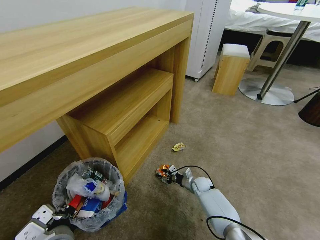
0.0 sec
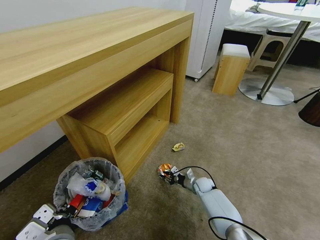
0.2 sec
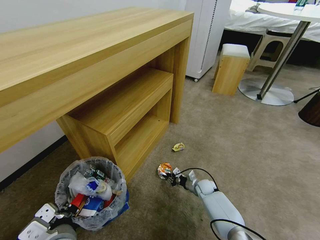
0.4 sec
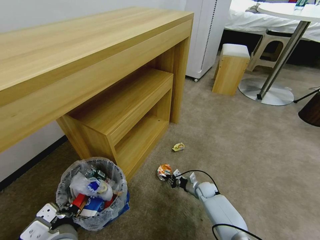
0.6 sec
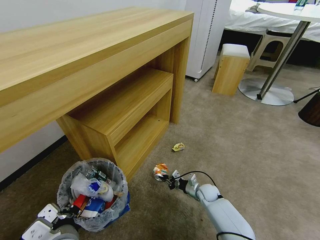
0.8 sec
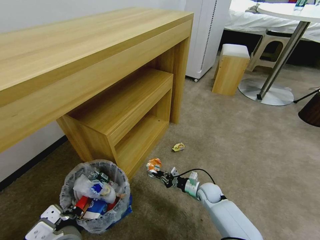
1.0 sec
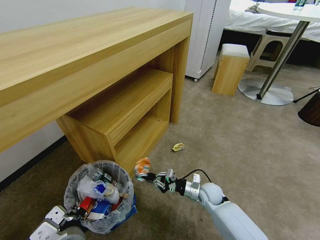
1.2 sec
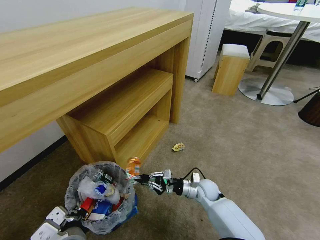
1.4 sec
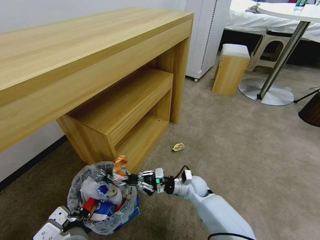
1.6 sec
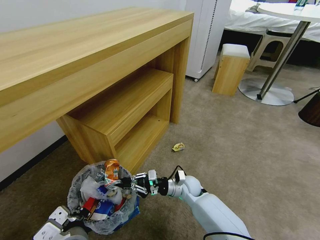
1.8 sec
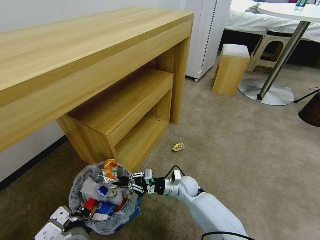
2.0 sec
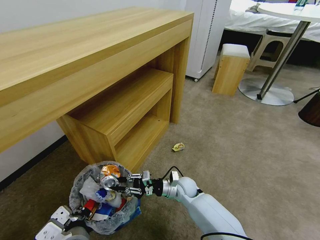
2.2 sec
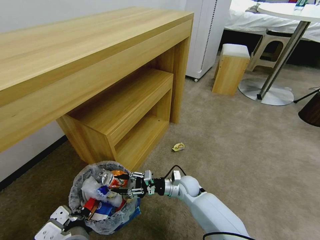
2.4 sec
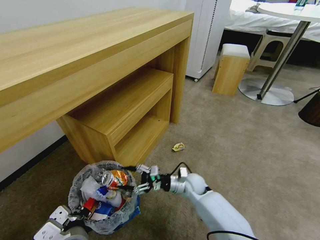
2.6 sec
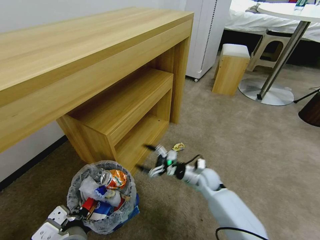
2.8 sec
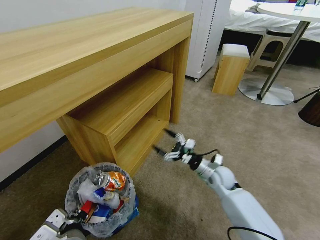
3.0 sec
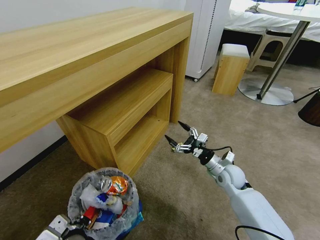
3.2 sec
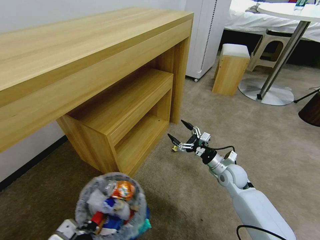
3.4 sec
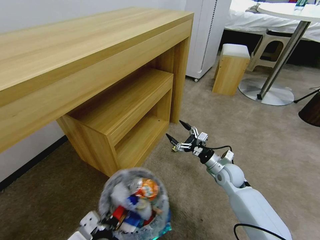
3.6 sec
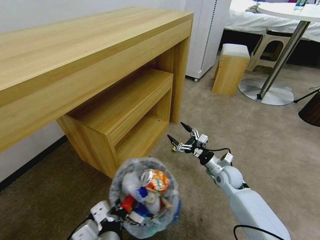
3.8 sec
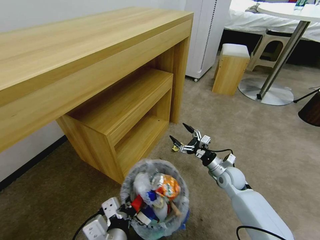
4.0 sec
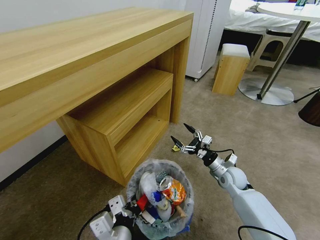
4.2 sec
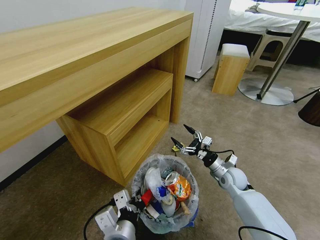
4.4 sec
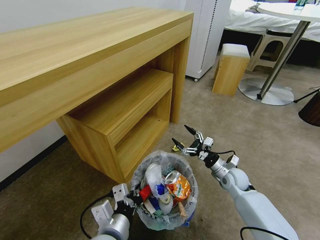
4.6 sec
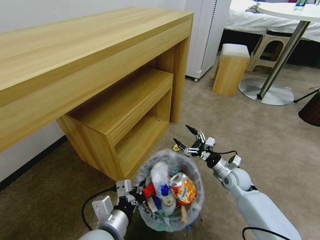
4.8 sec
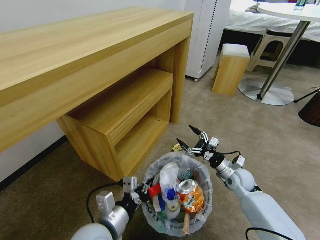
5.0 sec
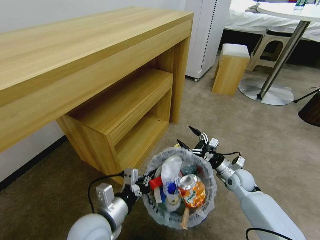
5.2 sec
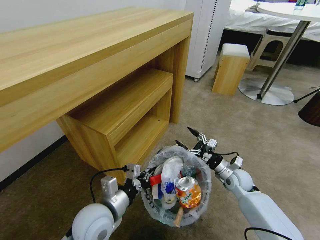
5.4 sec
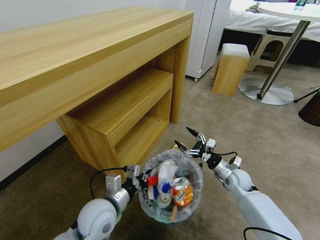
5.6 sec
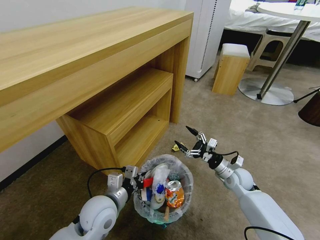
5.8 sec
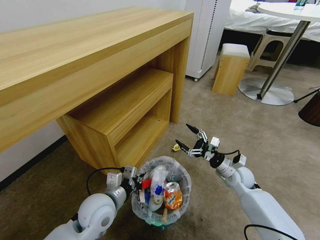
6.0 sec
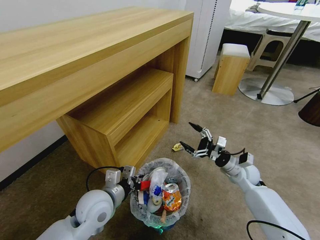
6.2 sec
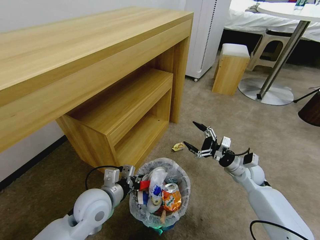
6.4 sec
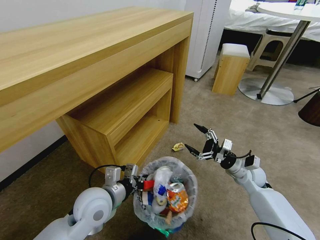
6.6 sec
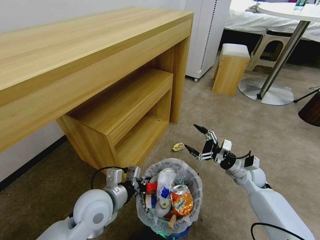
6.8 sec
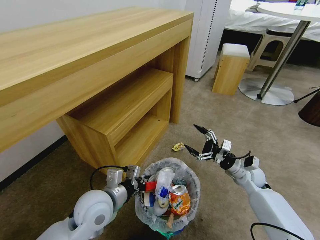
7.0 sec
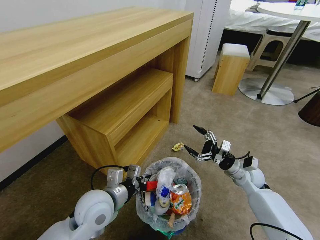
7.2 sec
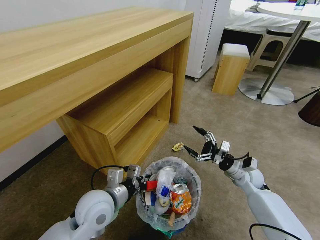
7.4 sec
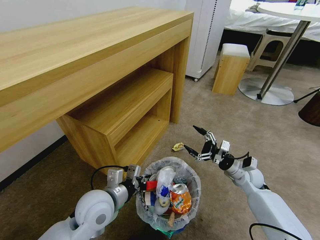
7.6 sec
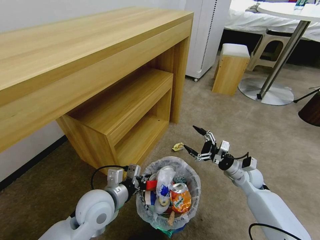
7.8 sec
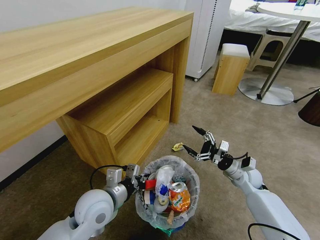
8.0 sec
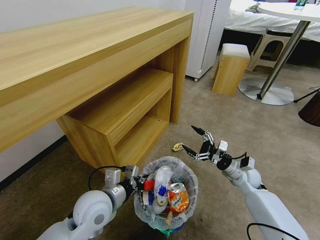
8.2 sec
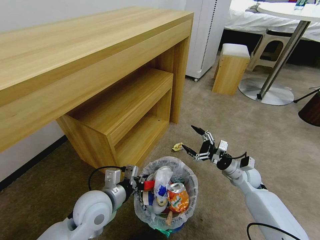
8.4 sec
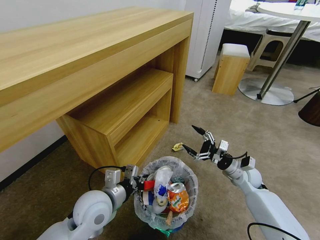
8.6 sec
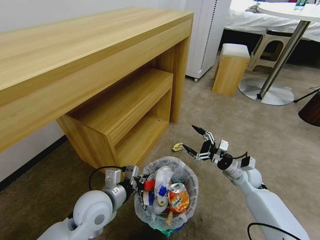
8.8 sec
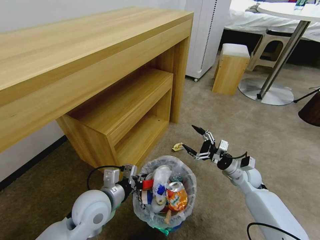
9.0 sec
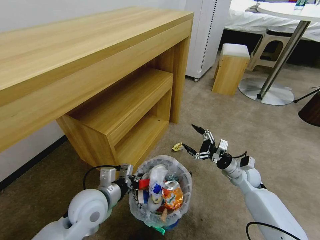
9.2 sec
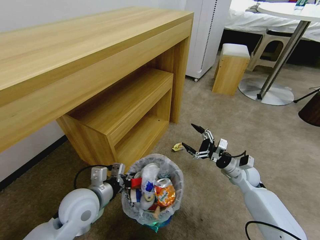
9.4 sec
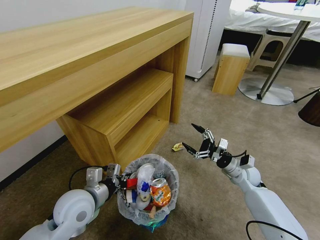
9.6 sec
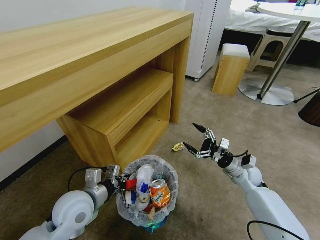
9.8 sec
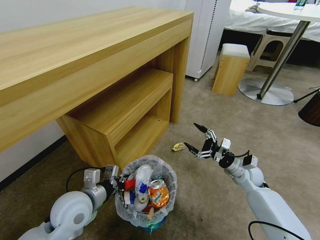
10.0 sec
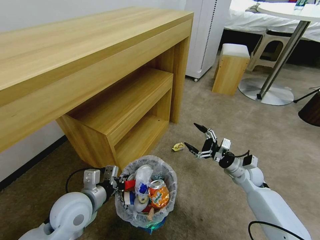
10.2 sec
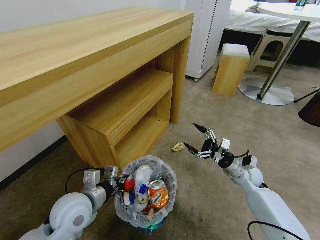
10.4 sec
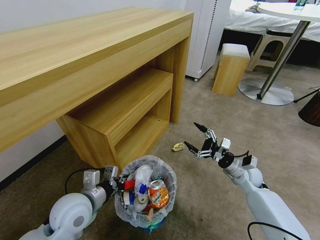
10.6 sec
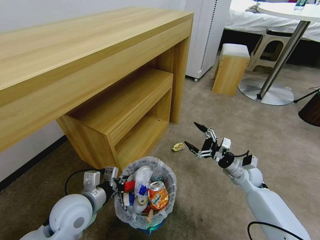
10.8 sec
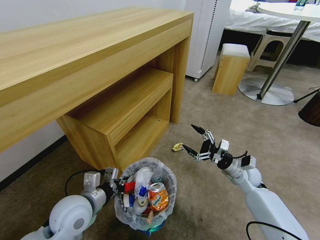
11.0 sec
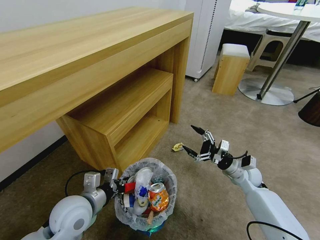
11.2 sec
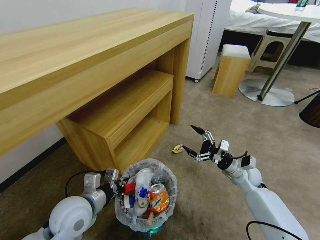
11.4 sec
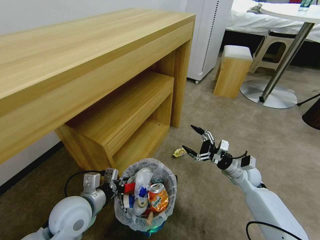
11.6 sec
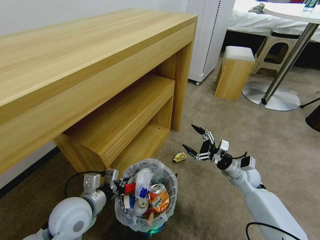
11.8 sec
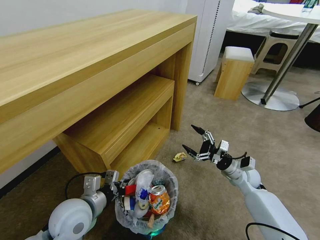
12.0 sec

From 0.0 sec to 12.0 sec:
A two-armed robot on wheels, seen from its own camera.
Task of the whole recording: Pick up the trash bin and place the garbage on the floor into it.
From 0.0 sec to 1.6 sec: The right gripper is displaced upward, to the left and backward by about 15 cm, and closes.
From 1.6 sec to 3.0 sec: The right gripper goes roughly 10 cm to the right and upward, and opens up.
From 3.0 sec to 4.4 sec: The grippers both shift to the right by roughly 5 cm.
From 4.4 sec to 6.0 sec: The left gripper is displaced forward and to the left by approximately 15 cm.
From 6.0 sec to 7.6 sec: The grippers move only a little.
From 7.6 sec to 9.0 sec: The two grippers keep their place.
From 9.0 sec to 10.4 sec: The grippers make only small movements.

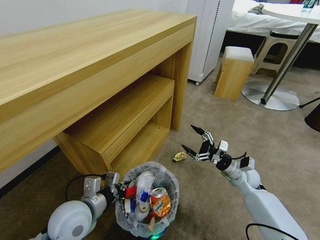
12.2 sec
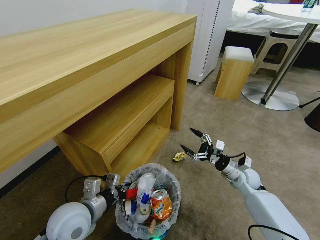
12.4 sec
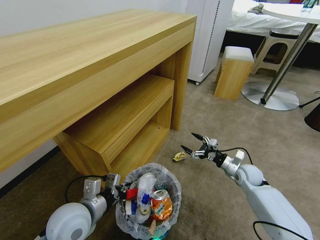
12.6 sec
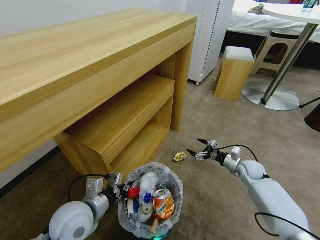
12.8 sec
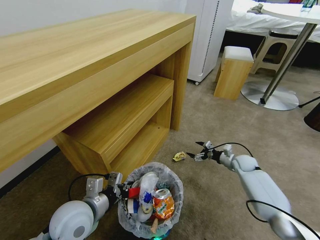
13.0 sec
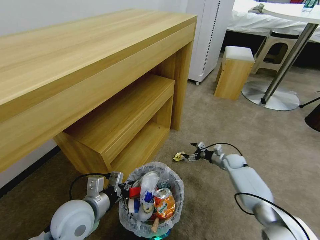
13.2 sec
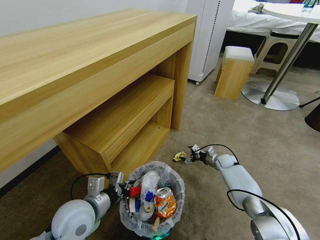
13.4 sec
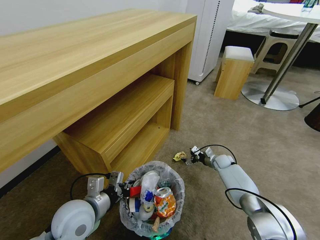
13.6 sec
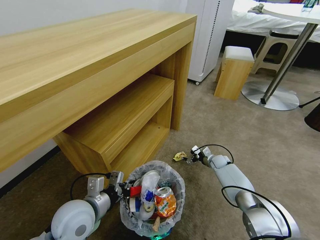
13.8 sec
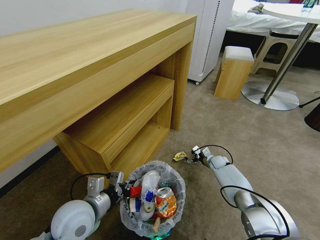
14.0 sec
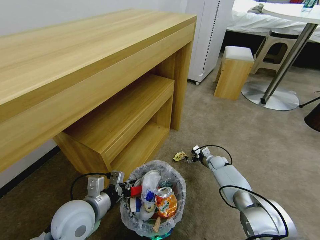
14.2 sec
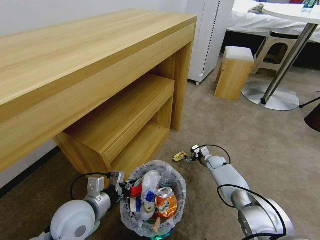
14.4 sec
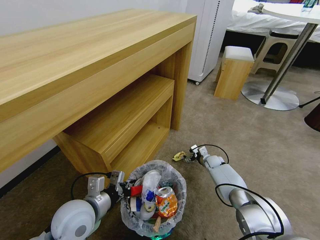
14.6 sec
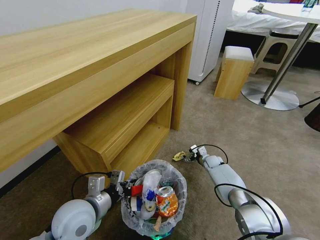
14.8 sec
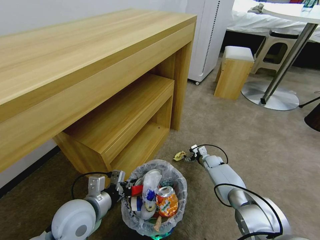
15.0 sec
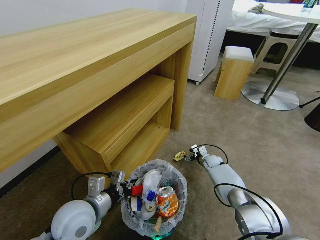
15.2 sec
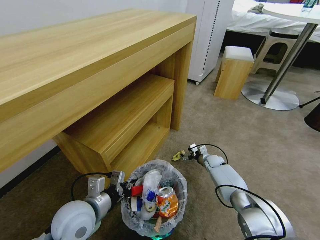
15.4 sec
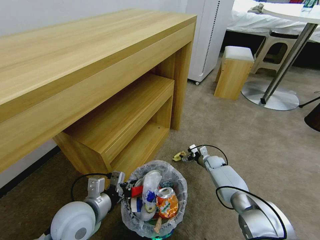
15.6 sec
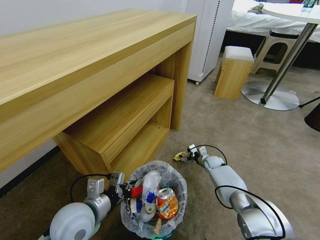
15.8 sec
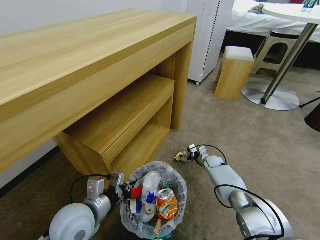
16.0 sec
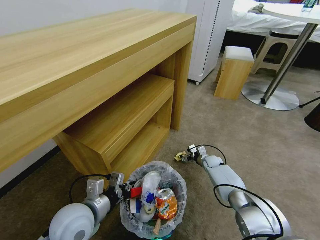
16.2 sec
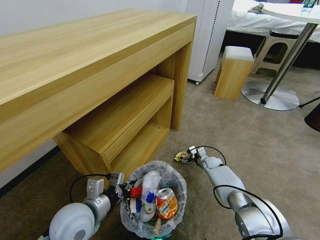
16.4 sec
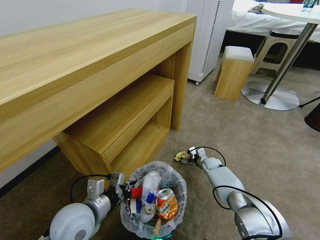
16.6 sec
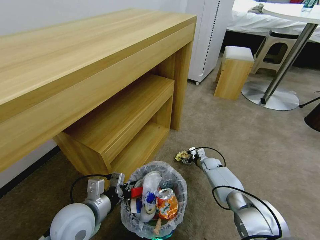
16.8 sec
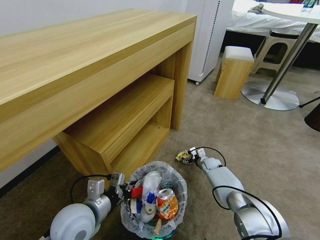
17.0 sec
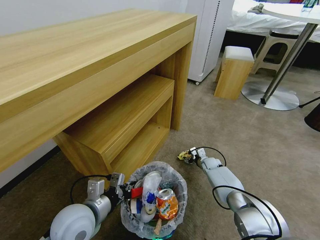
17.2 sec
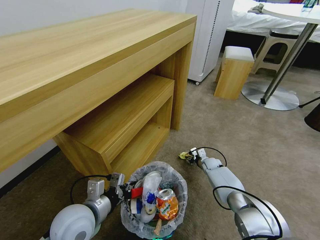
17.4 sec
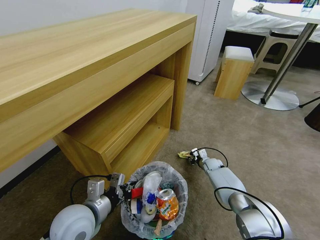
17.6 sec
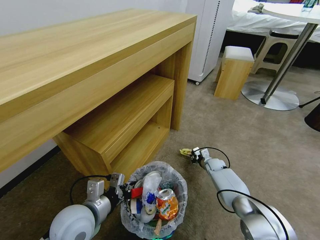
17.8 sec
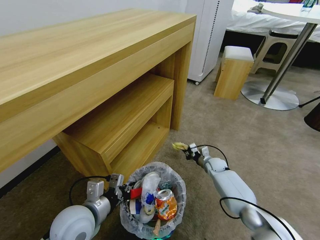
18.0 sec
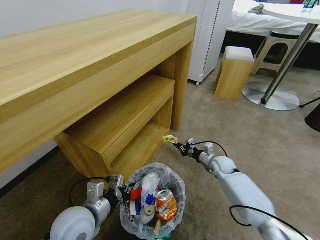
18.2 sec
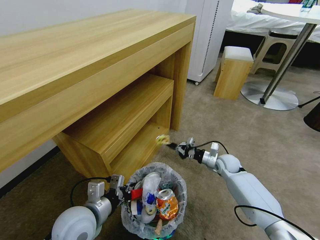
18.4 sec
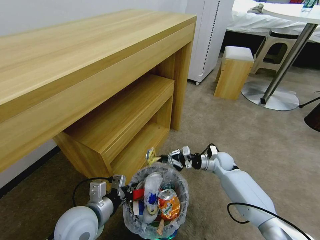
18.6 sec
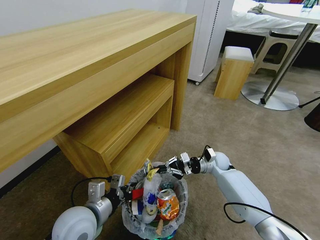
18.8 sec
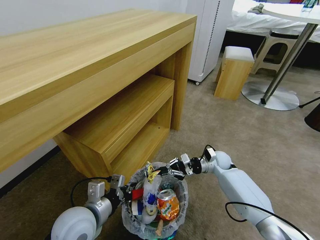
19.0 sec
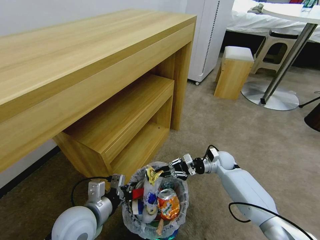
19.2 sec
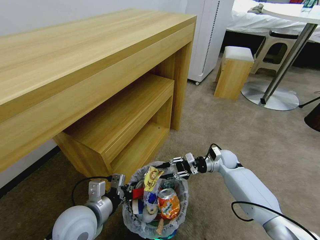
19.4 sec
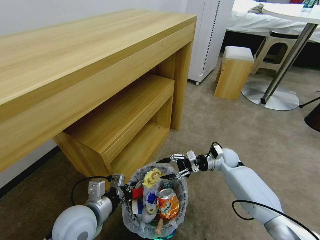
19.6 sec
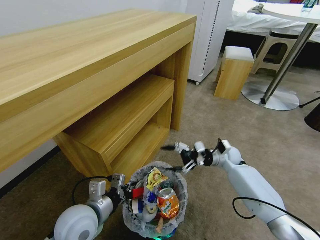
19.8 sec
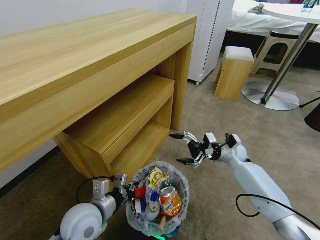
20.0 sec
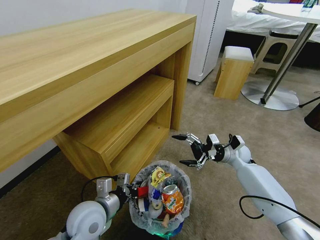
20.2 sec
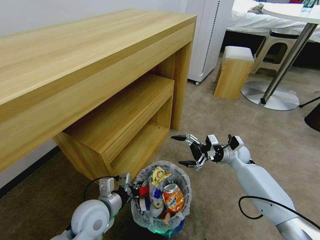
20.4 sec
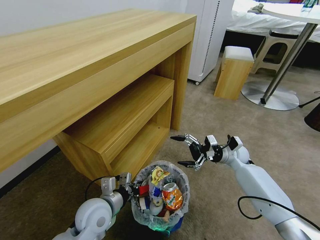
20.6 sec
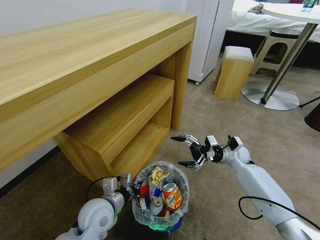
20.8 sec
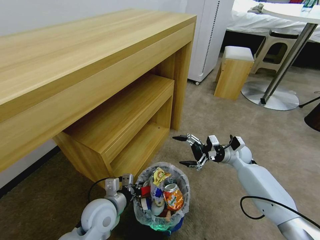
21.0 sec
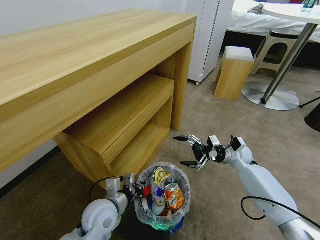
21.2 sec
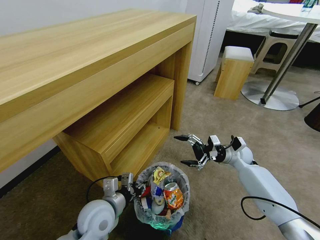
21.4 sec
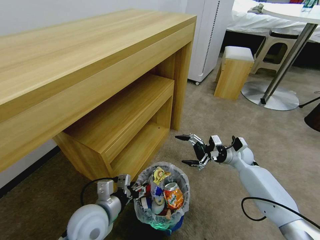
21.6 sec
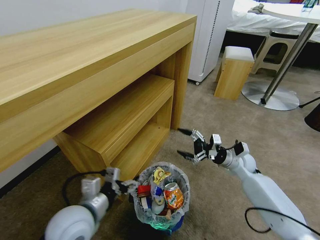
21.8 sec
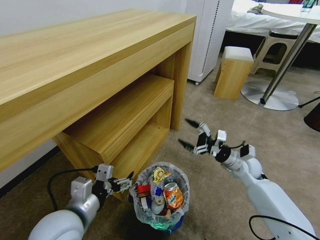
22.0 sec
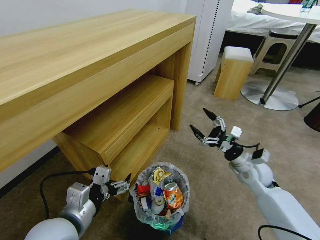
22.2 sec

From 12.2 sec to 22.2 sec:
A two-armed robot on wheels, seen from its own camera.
Task of the whole recording: Pick up the trash bin and place the garbage on the floor into it.
From 12.2 sec to 13.6 sec: The right gripper moves forward and downward, approximately 20 cm.
From 13.6 sec to 15.0 sec: The right gripper moves some 5 cm.
From 15.0 sec to 16.4 sec: The grippers make only small movements.
From 16.4 sec to 18.0 sec: The right gripper closes.
From 18.0 sec to 19.4 sec: The right gripper goes some 10 cm upward, and opens its fingers.
From 19.4 sec to 20.8 sec: The left gripper travels downward by roughly 5 cm. The right gripper moves about 5 cm, and opens up.
From 20.8 sec to 22.2 sec: The left gripper heads upward and backward, covering about 15 cm, and opens up, while the right gripper travels backward by roughly 10 cm.
